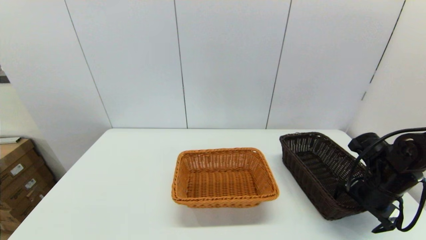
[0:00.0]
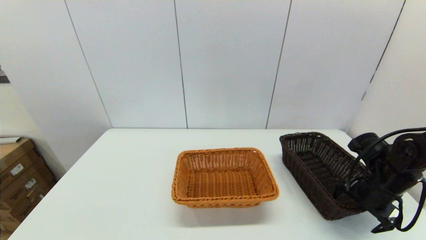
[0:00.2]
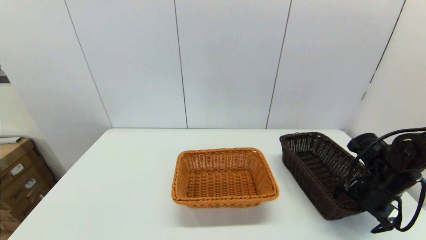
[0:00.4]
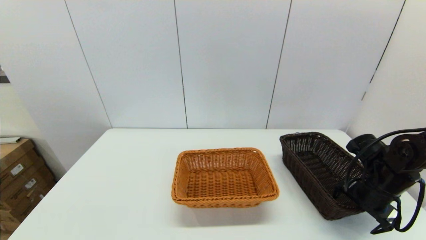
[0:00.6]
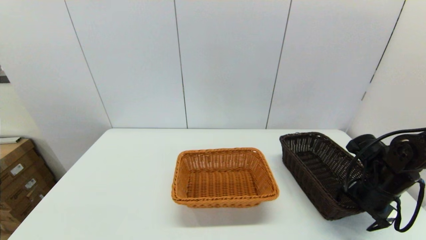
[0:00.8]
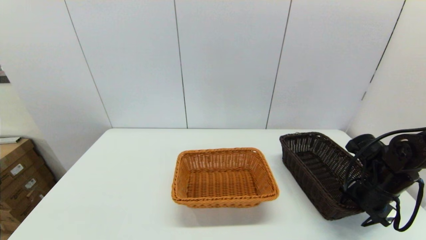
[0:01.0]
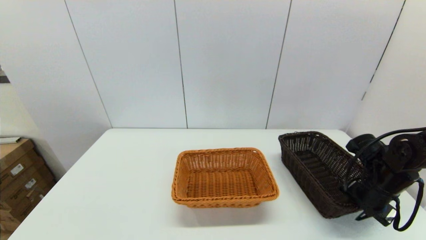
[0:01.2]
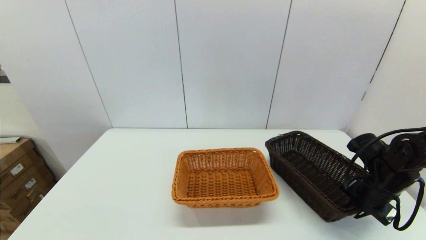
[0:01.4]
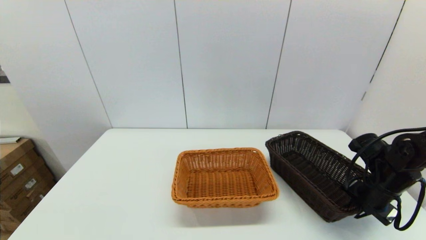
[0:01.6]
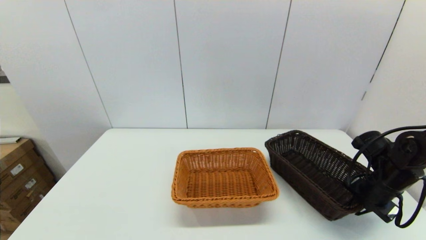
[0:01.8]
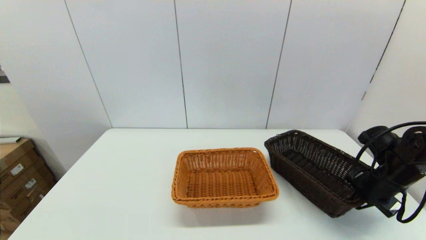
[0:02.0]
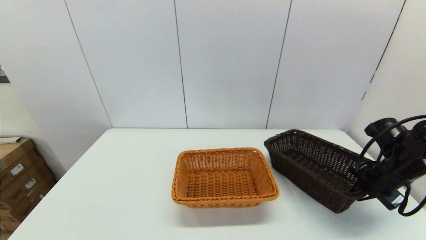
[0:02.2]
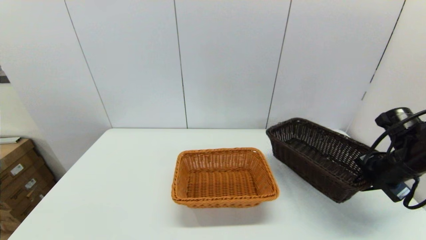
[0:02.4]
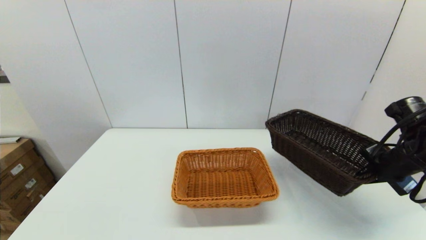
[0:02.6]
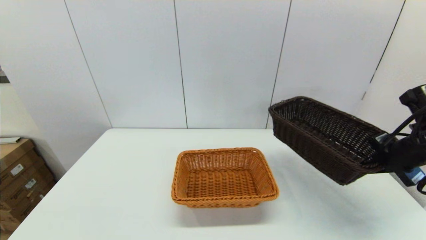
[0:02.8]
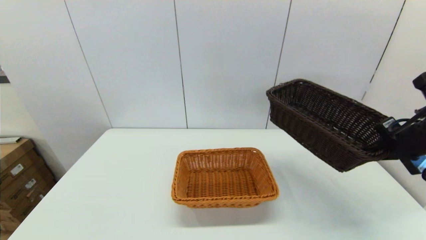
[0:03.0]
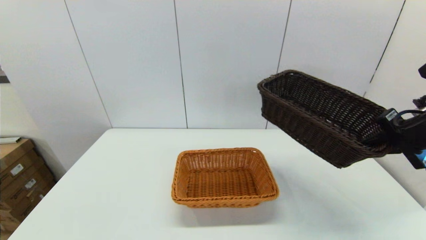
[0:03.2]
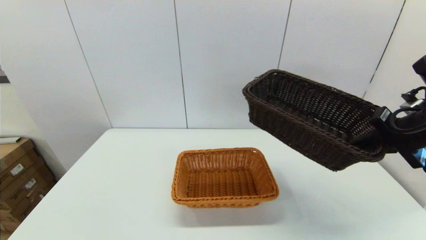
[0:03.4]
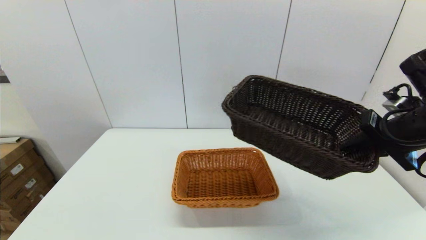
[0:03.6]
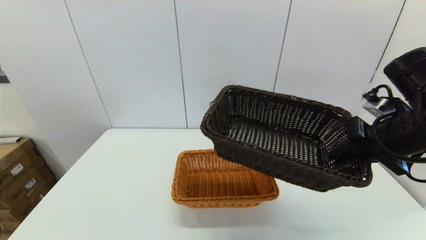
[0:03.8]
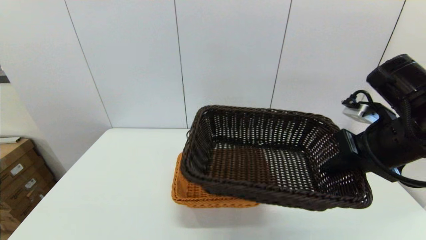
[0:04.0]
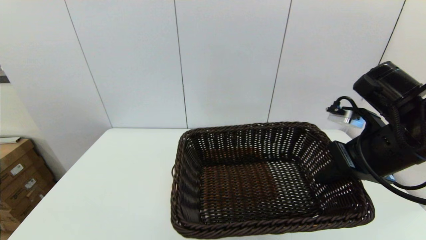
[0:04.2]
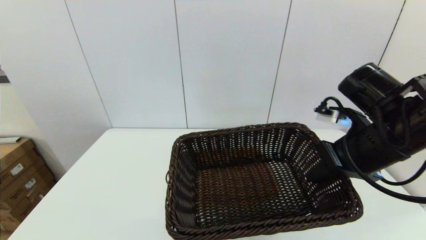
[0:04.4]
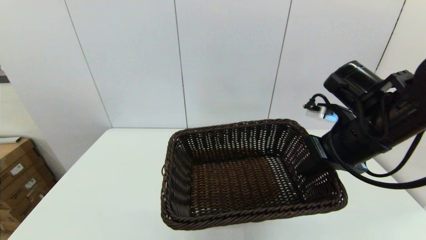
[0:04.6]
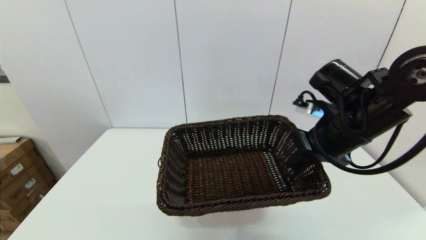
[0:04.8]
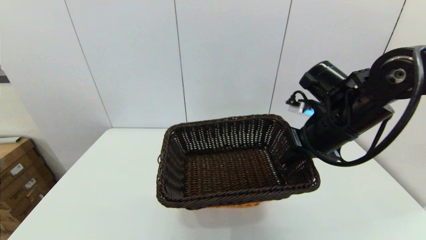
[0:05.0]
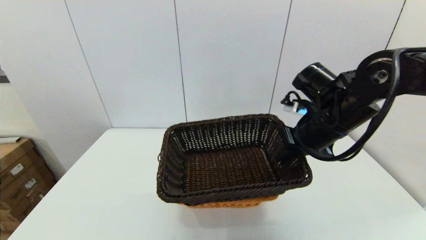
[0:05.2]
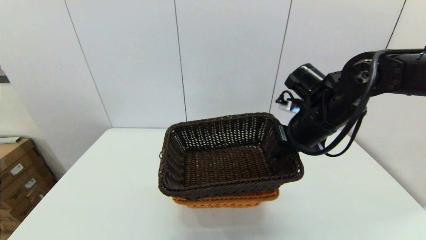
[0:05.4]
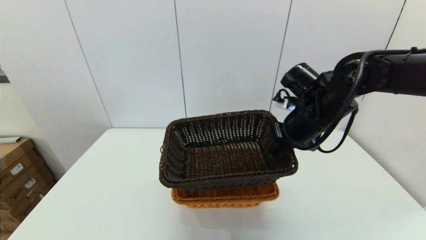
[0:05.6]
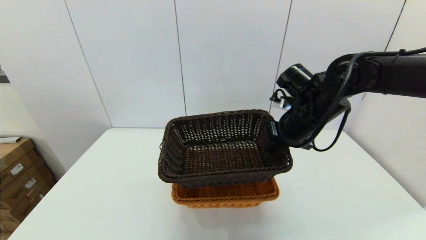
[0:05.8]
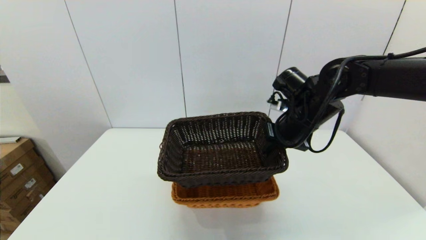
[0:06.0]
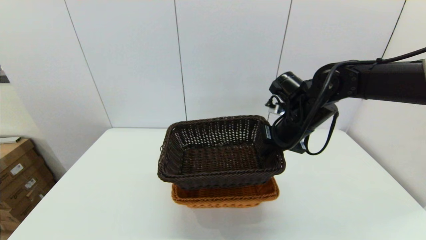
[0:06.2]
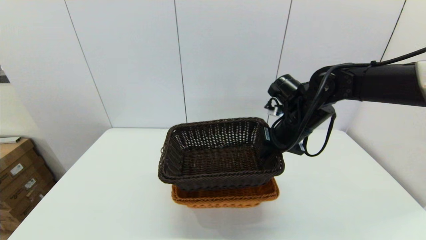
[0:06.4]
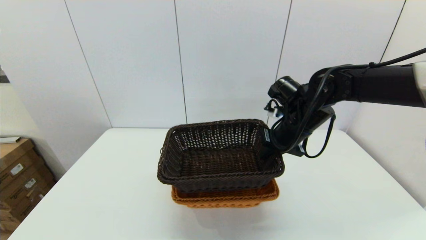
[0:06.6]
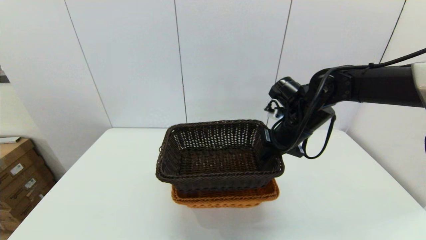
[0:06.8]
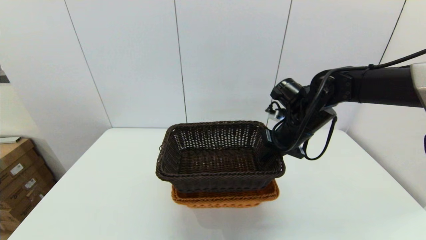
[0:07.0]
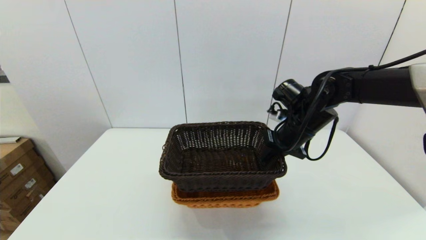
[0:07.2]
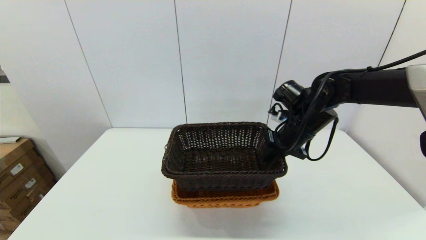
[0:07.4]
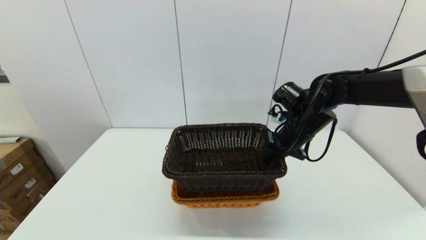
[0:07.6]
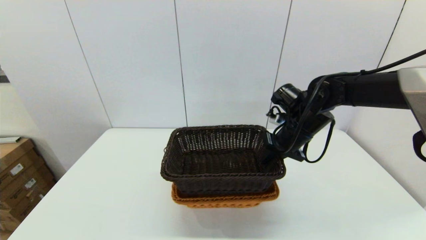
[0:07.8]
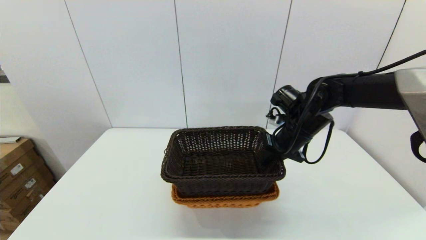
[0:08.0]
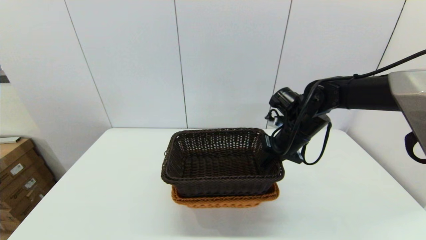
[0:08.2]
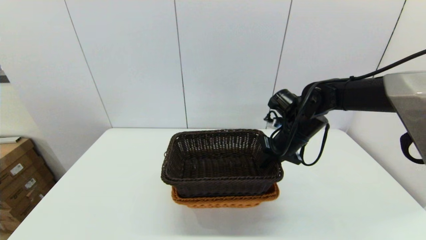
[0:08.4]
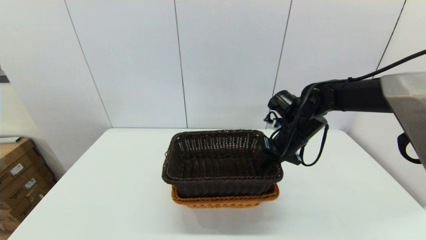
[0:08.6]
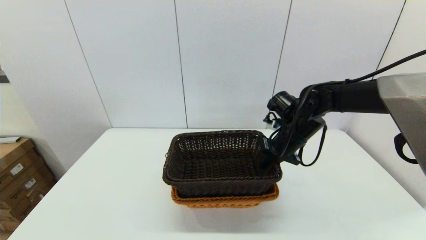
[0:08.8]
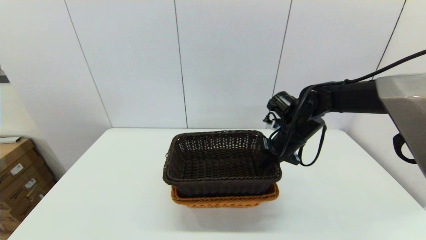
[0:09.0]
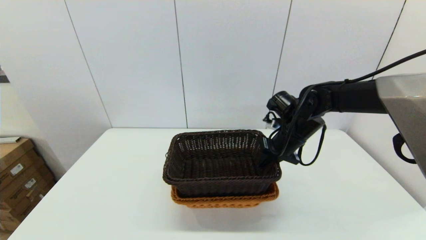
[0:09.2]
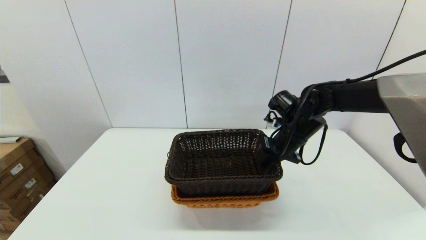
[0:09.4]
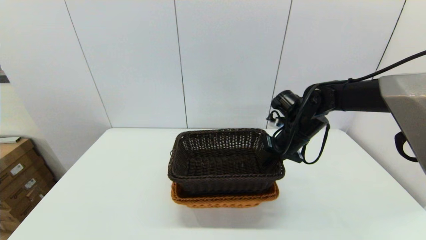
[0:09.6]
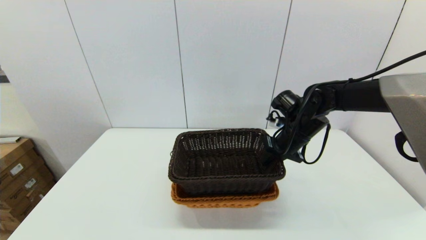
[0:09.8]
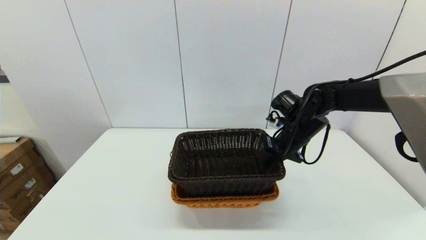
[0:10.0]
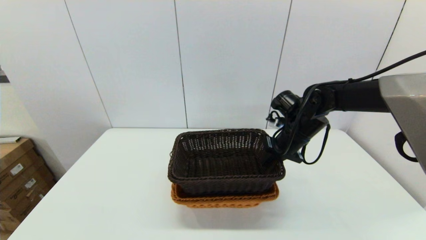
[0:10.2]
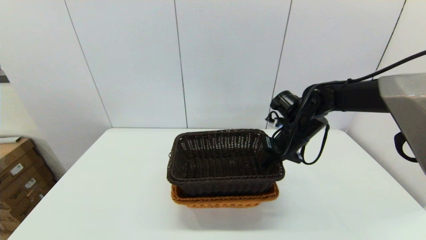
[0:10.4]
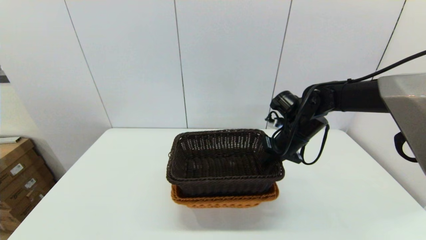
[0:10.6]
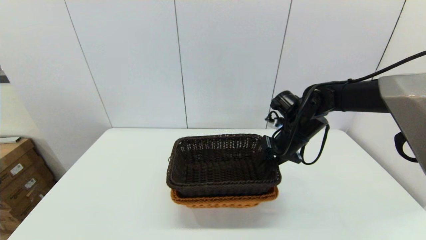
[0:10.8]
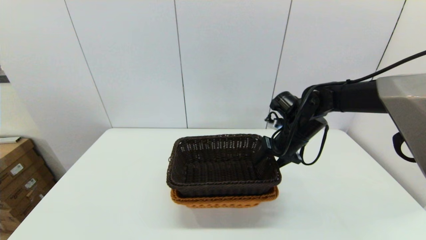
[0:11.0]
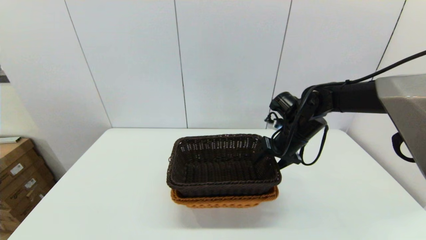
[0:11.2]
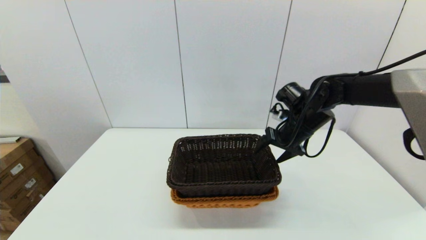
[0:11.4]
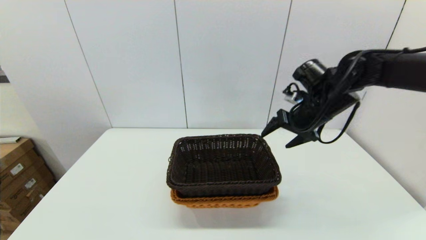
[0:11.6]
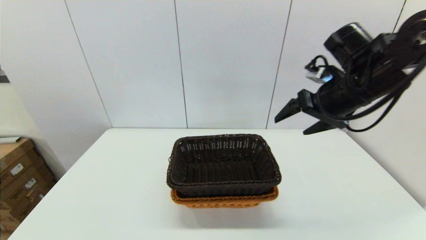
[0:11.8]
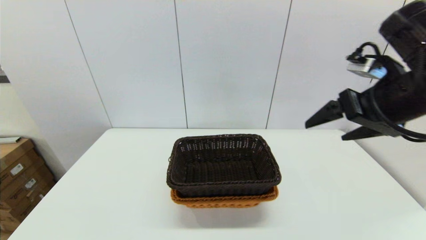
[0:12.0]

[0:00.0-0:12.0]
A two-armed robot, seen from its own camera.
Task of the whole recording: stack a basket on top of another basket.
Step, 0:00.0 to 0:02.2: Grasp the dark basket with the right gripper.
Step, 0:02.6 to 0:11.6: Place the dark basket into the light color basket with the right gripper.
0:00.0 to 0:01.6: The right gripper closes its fingers.
0:01.6 to 0:03.0: The right gripper is displaced upward by about 15 cm.
0:03.0 to 0:04.4: The right gripper goes about 15 cm to the left.
0:04.4 to 0:06.0: The right gripper heads forward and to the left, covering some 10 cm.
0:06.0 to 0:07.6: There are only small adjustments of the grippers.
0:07.6 to 0:09.0: The grippers stay close to where they were, moving slightly.
0:09.0 to 0:10.4: The two grippers keep their place.
0:10.4 to 0:12.0: The right gripper moves upward and backward, about 20 cm, and opens its fingers.

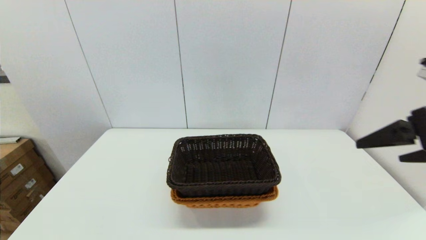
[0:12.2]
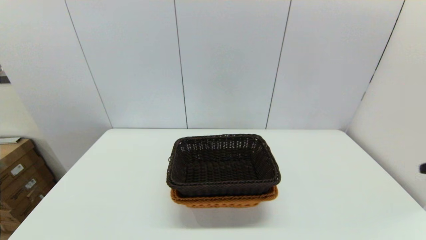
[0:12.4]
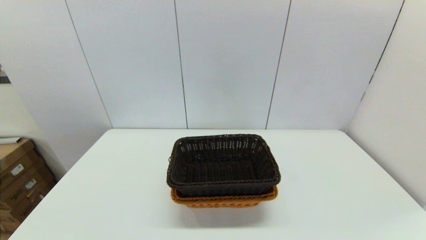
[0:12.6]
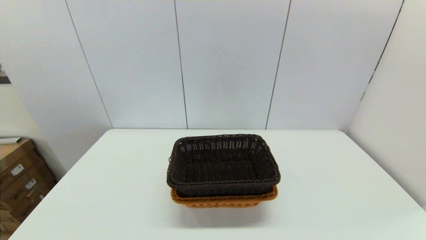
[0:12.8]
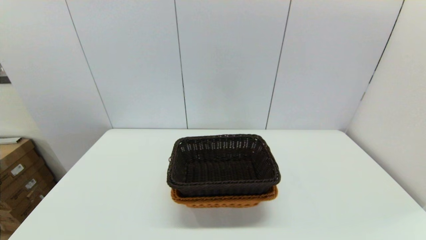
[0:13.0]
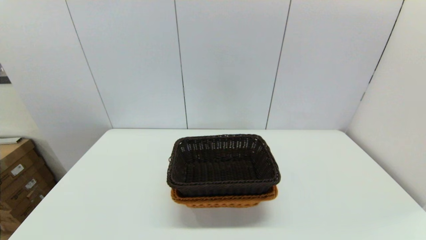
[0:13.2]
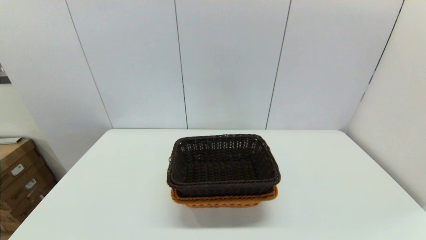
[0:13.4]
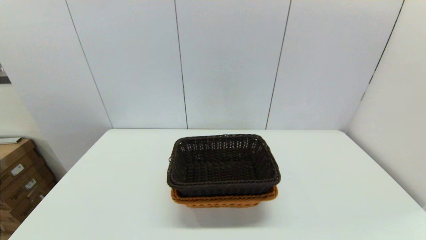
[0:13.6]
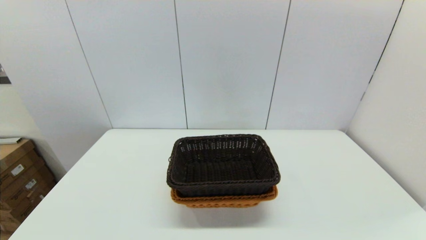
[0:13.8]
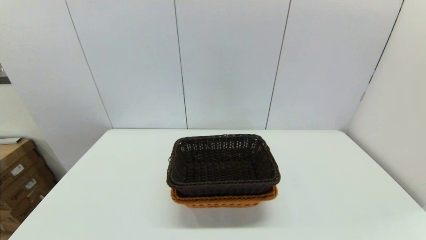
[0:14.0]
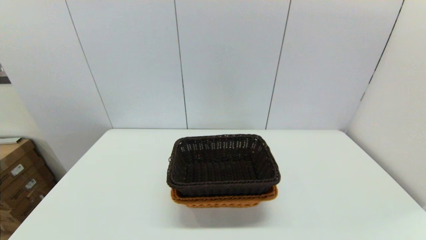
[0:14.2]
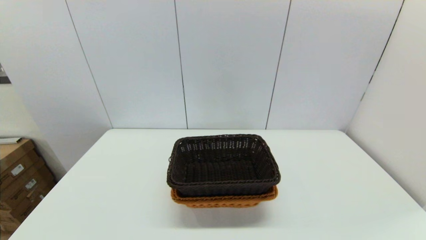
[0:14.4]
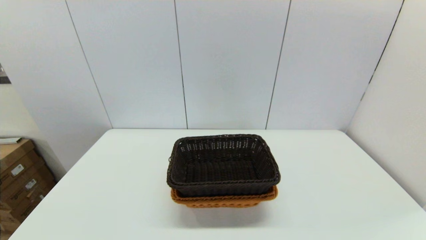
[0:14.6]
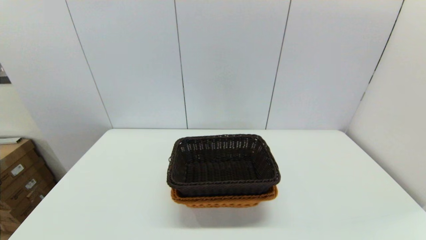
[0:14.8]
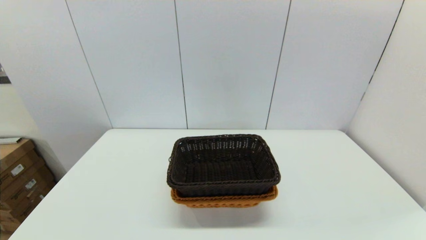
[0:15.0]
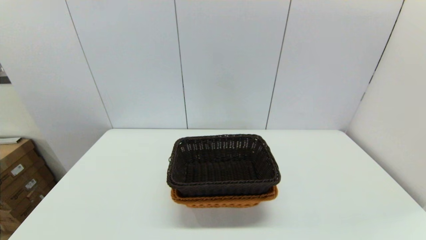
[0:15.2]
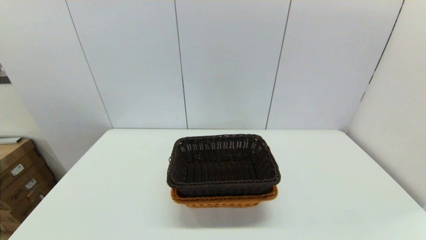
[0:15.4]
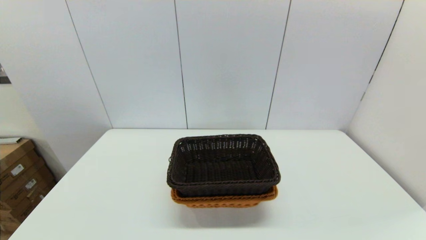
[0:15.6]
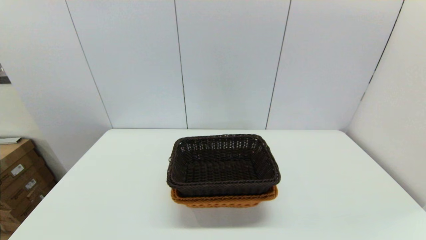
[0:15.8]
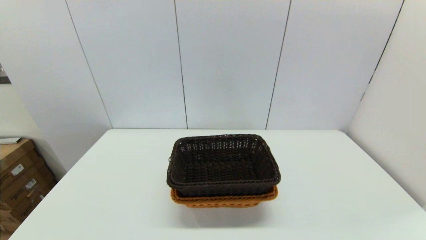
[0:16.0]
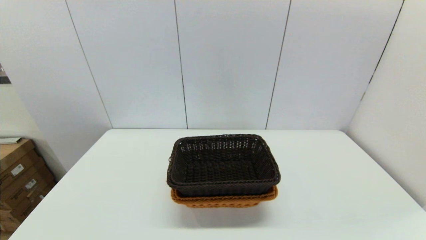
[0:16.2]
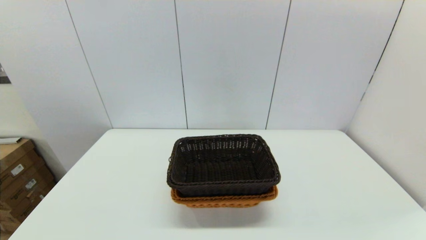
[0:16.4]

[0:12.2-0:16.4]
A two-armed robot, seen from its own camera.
Task of the whole recording: stack a basket on top of another basket.
0:12.2 to 0:13.6: The right gripper is displaced backward and downward by roughly 25 cm.
